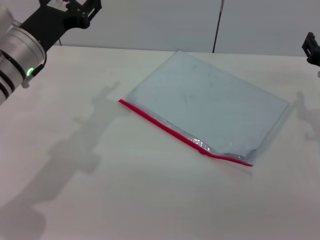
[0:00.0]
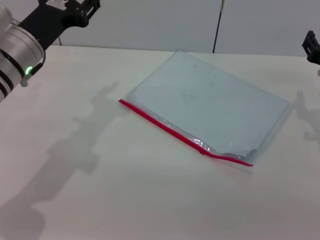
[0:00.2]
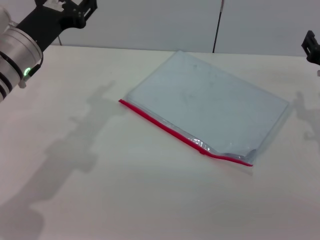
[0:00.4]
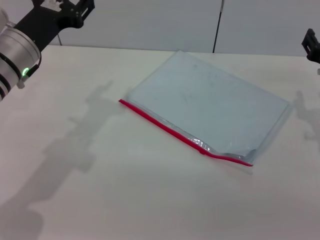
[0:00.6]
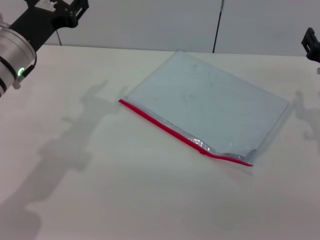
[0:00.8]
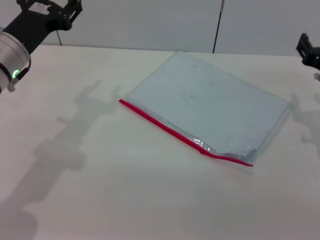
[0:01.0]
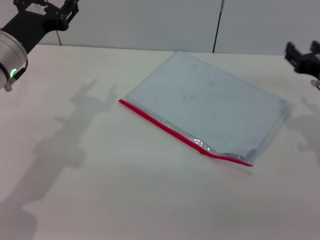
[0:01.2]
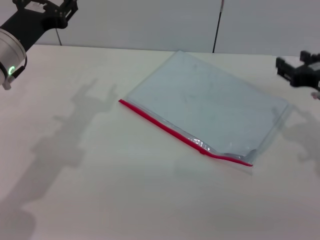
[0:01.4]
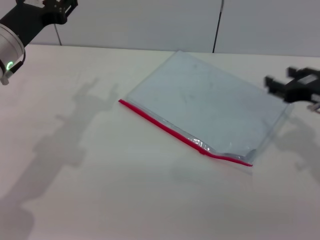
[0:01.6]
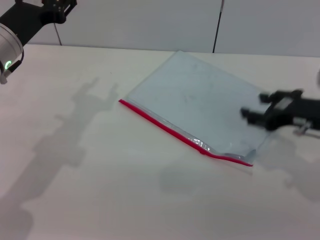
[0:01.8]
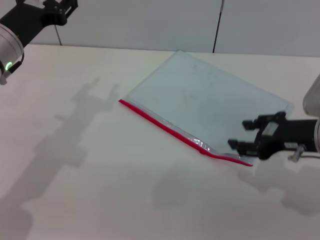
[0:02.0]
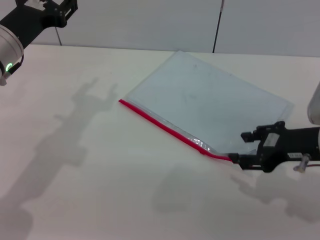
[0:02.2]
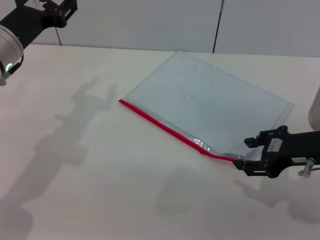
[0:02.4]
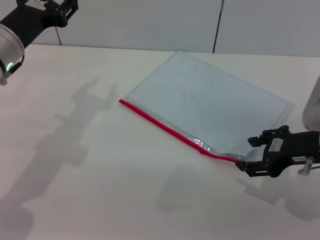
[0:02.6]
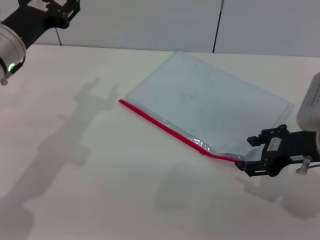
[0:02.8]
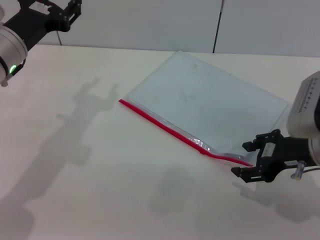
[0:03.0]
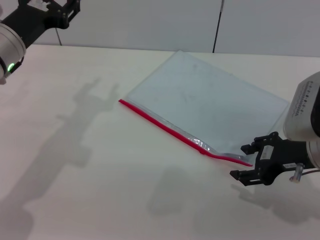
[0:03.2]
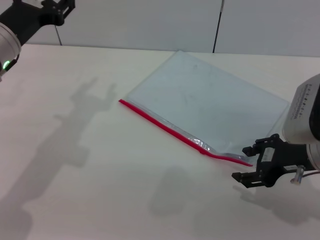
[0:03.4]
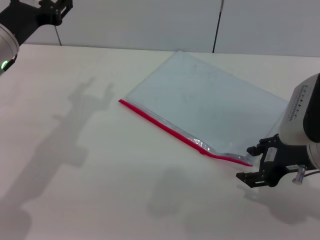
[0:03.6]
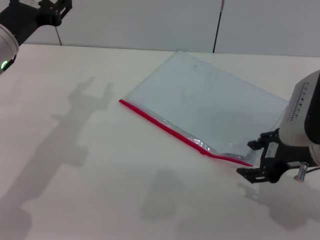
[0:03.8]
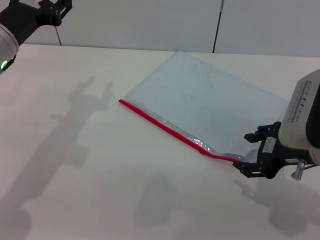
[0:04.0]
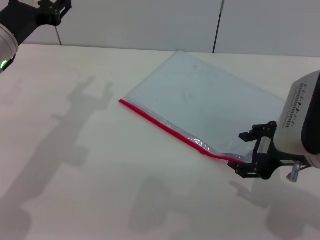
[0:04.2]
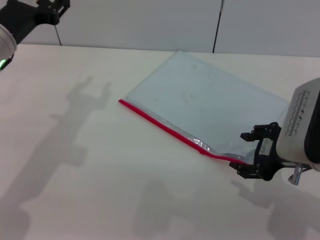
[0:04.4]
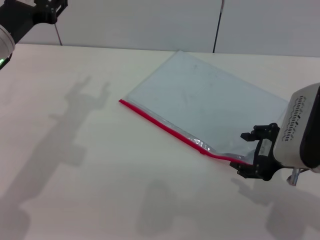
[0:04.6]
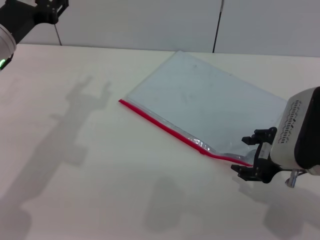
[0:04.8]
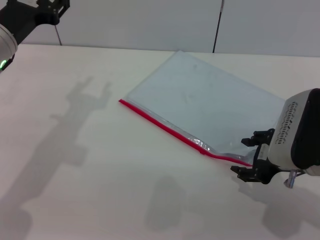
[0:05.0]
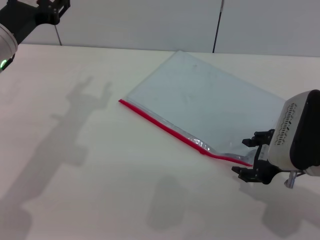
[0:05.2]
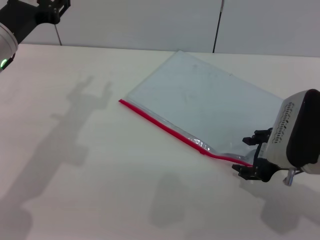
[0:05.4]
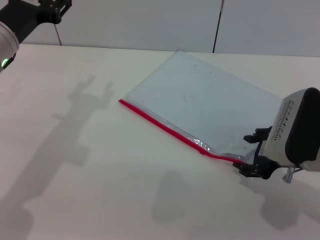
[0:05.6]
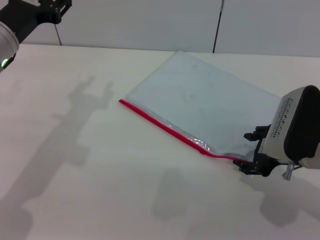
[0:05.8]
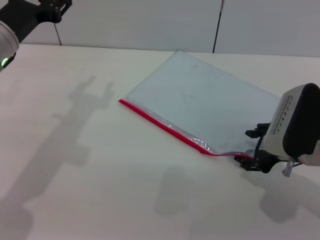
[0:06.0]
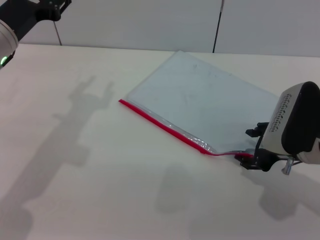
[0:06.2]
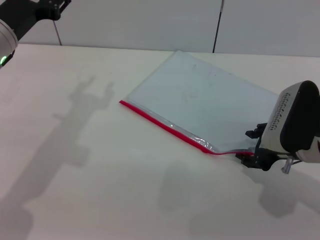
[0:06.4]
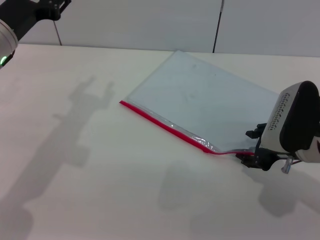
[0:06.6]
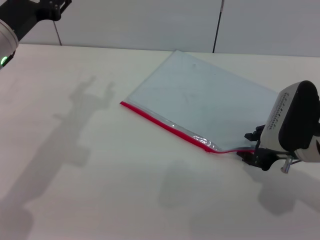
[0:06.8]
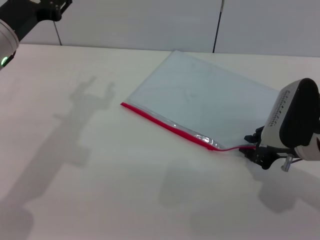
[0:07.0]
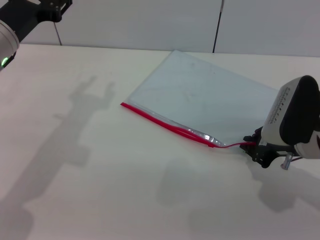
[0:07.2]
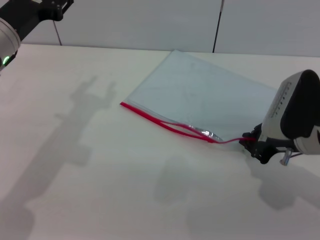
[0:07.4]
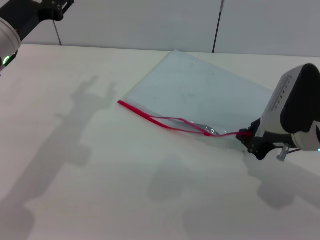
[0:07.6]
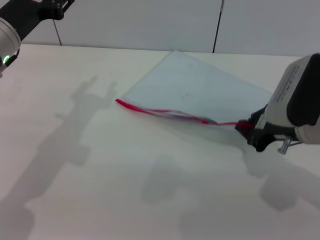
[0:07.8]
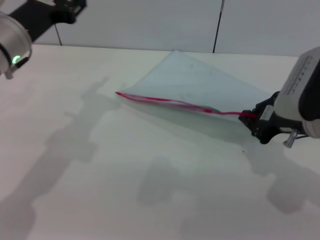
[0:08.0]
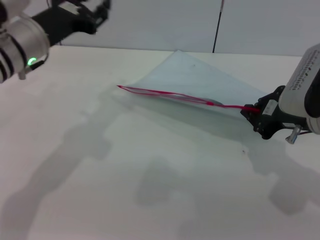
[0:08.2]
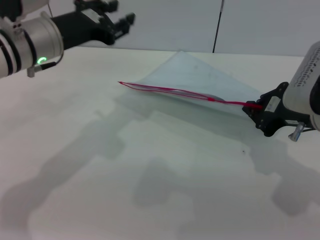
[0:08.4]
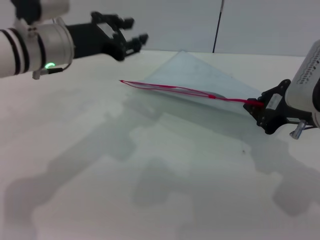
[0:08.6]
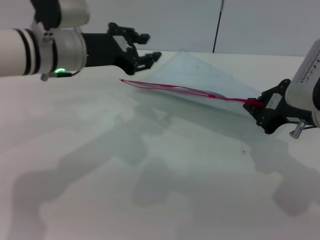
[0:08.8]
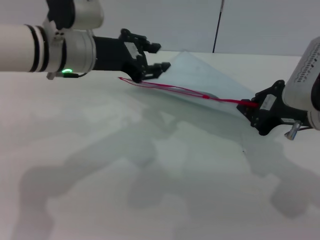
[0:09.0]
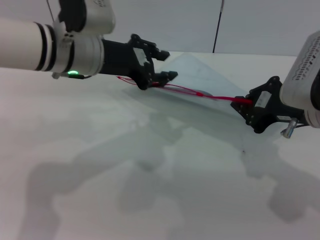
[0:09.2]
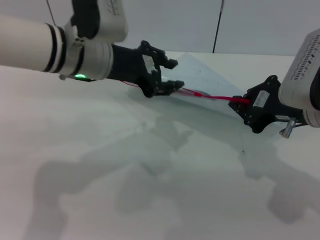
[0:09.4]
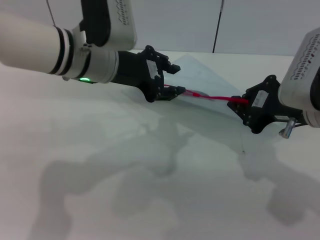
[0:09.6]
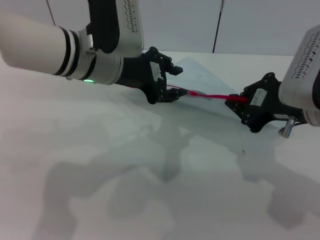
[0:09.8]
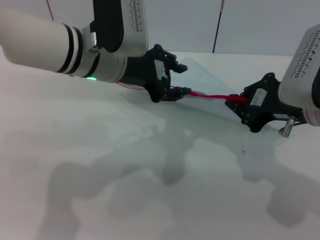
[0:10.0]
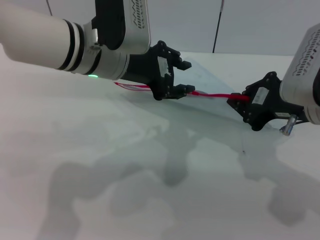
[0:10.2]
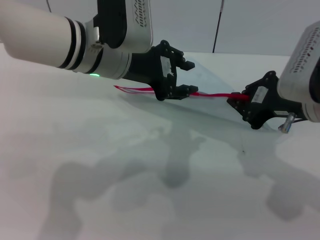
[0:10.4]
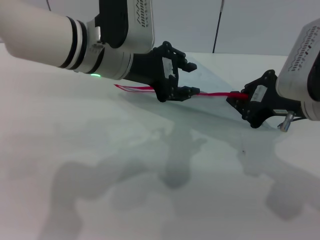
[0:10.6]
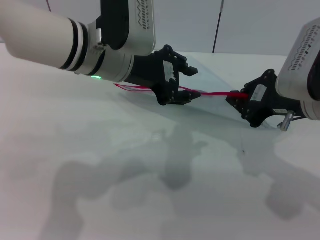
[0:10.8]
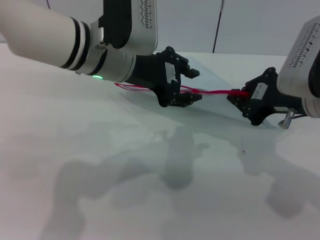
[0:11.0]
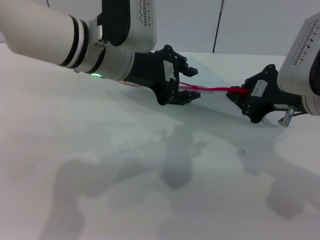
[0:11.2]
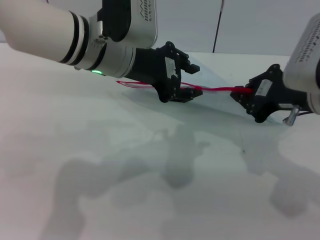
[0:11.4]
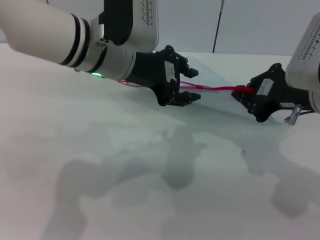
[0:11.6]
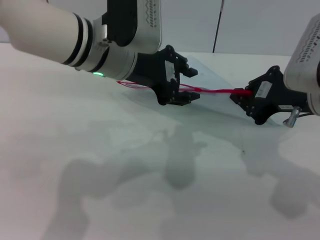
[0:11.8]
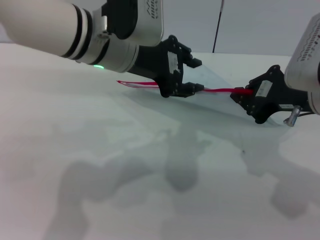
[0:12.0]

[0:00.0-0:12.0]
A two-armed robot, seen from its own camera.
Step, 0:00.0 to 0:08.4: Pick up the transparent plastic bag with the right gripper.
0:03.0 to 0:04.4: There are only small adjustments of the grippers.
0:04.4 to 0:06.0: The right gripper moves approximately 5 cm.
0:06.0 to 0:07.6: The right gripper closes.
0:07.6 to 0:09.0: The right gripper heads upward, covering about 5 cm; the left gripper travels to the right by roughly 10 cm.
0:09.0 to 0:10.4: The left gripper shifts about 5 cm to the right.
0:10.4 to 0:12.0: The grippers move only a little.

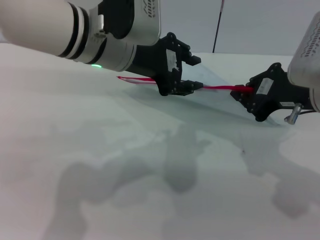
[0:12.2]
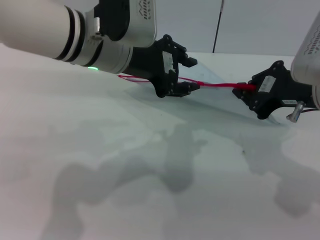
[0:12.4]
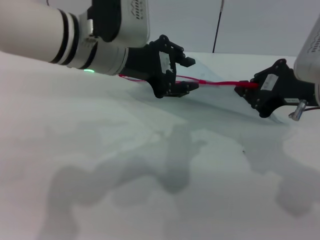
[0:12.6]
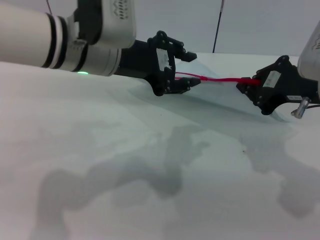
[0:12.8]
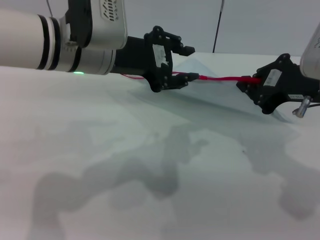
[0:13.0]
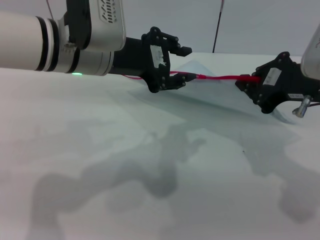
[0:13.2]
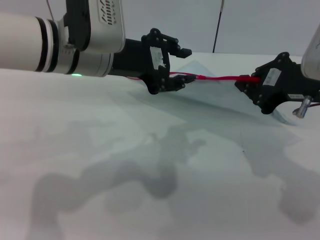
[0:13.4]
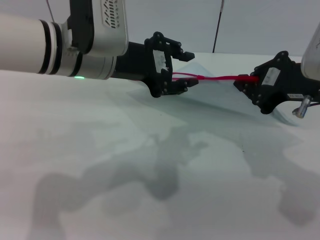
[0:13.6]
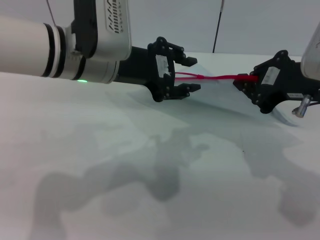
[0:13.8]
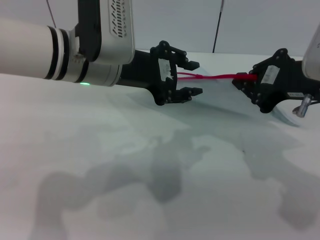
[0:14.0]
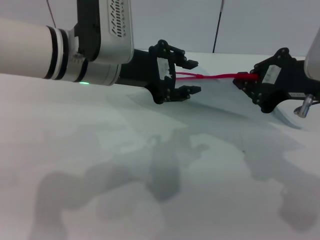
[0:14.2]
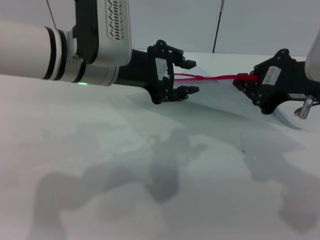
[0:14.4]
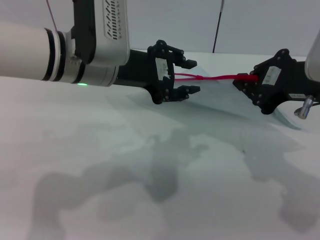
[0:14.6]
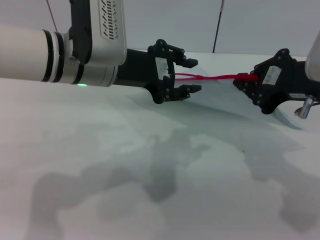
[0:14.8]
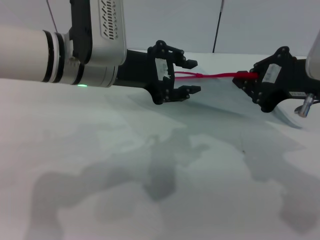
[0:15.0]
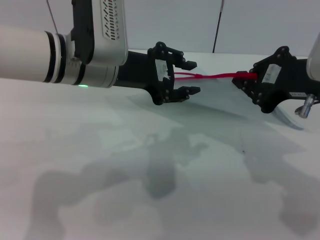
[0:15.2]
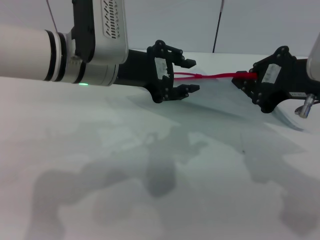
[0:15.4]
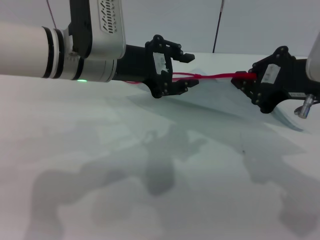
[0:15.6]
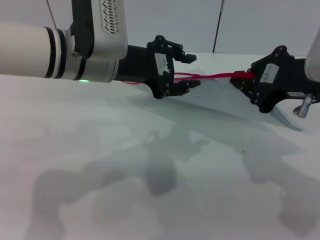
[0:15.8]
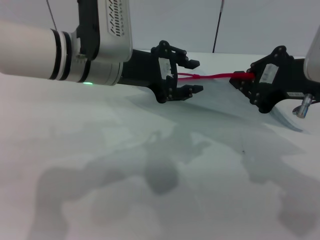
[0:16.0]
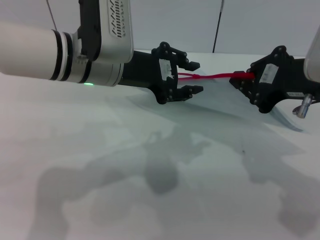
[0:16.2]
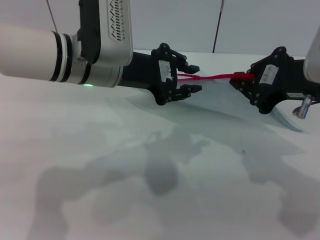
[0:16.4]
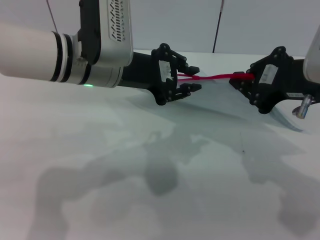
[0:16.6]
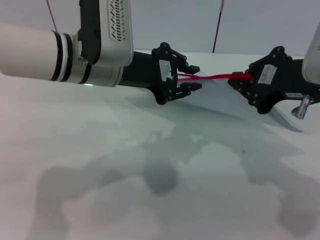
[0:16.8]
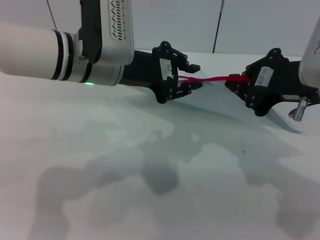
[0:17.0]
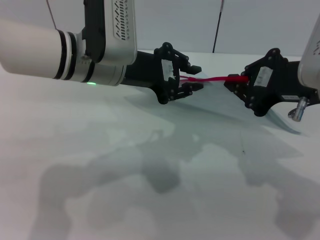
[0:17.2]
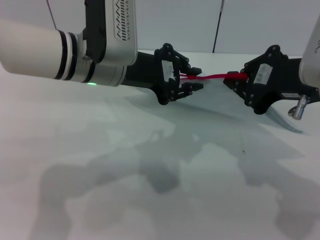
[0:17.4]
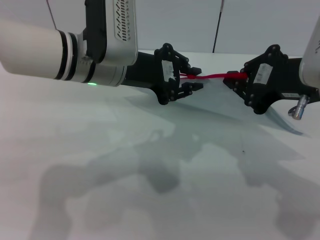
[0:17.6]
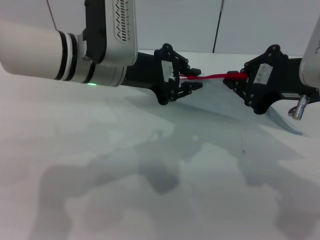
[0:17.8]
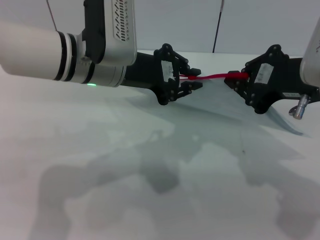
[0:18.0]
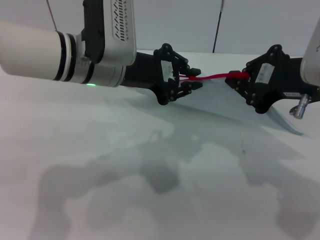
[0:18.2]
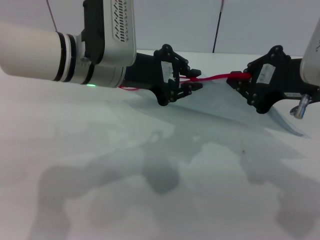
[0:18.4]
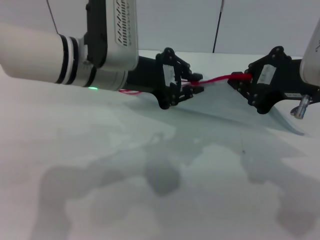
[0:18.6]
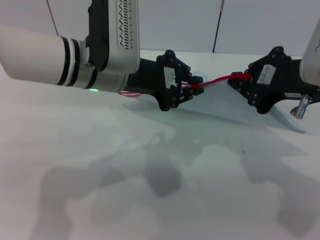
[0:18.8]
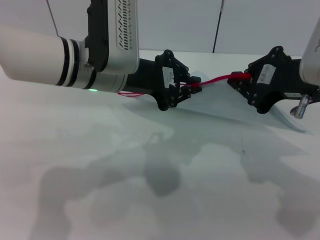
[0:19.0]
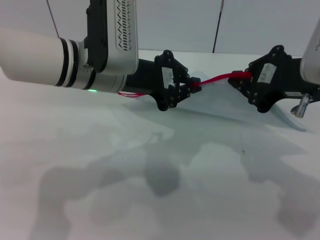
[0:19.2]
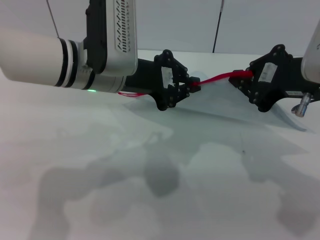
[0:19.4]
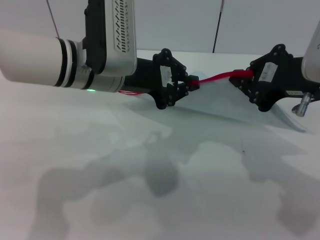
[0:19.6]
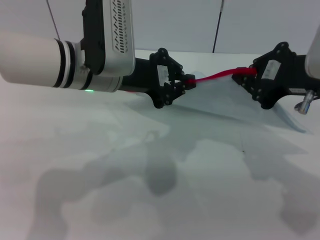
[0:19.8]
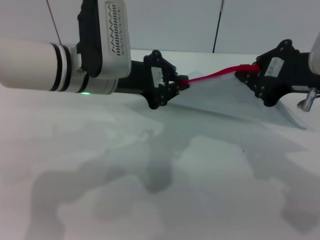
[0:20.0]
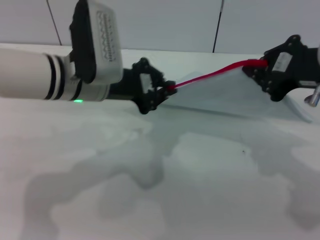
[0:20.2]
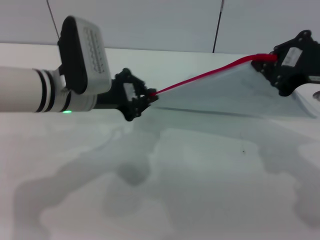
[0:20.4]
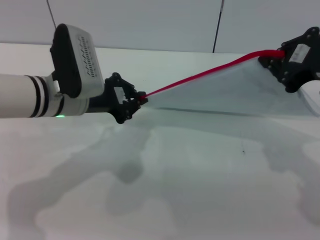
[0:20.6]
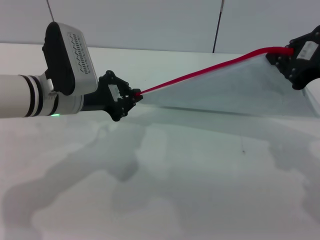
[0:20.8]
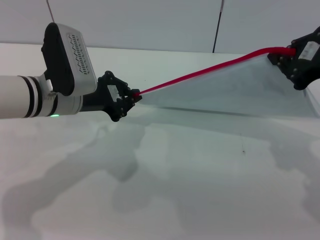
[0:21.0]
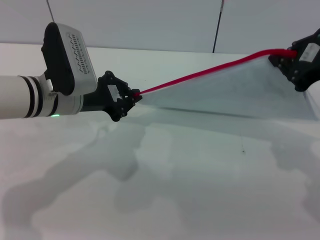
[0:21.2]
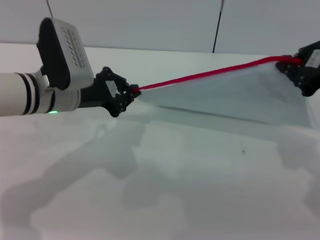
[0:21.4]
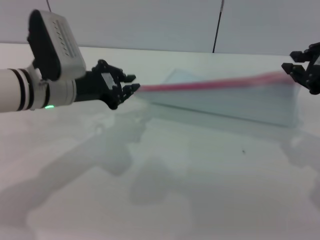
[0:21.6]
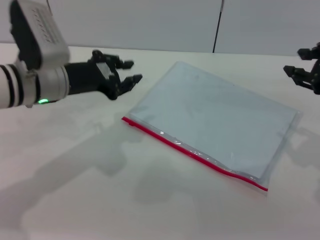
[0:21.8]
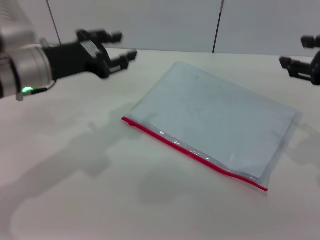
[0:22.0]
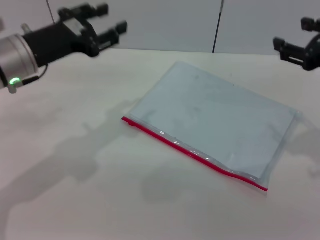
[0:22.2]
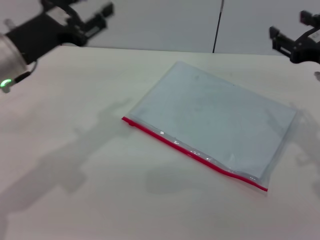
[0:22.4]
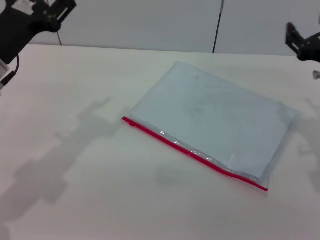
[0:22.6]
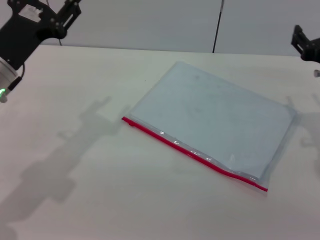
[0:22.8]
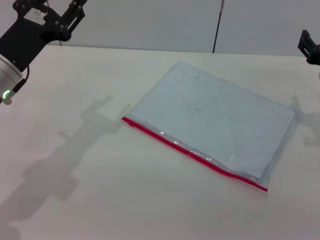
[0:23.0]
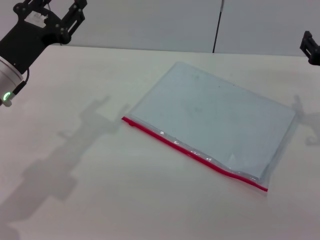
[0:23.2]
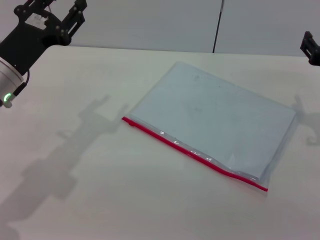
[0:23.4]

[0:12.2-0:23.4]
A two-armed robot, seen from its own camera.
Step, 0:12.2 to 0:21.4: Pulling up the zipper on the transparent plastic bag with the left gripper to close it.
Step, 0:21.6 to 0:22.4: Place the transparent plastic bag.
0:13.8 to 0:15.4: The grippers make only small movements.
0:15.4 to 0:17.0: The two grippers keep their place.
0:17.0 to 0:18.6: Neither gripper changes place.
0:20.2 to 0:21.8: The right gripper heads to the right, covering some 5 cm, while the left gripper shifts approximately 5 cm to the left.
0:21.8 to 0:23.4: The left gripper shifts by some 5 cm, and opens up. Meanwhile the right gripper moves downward, about 10 cm, and opens up.
